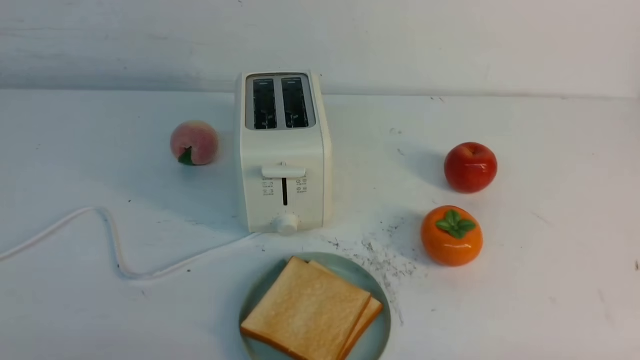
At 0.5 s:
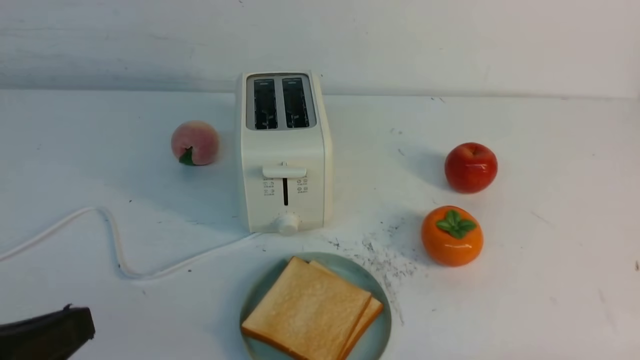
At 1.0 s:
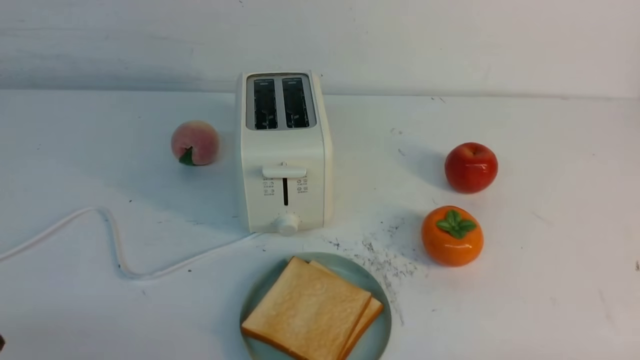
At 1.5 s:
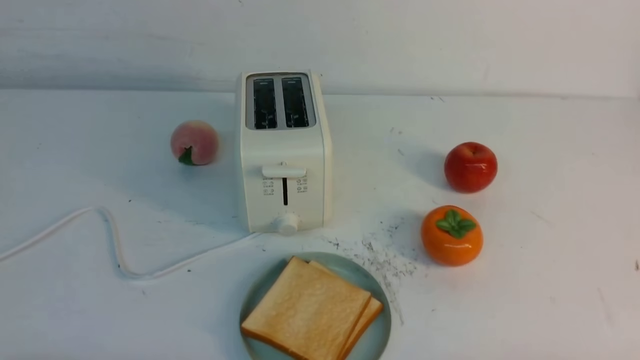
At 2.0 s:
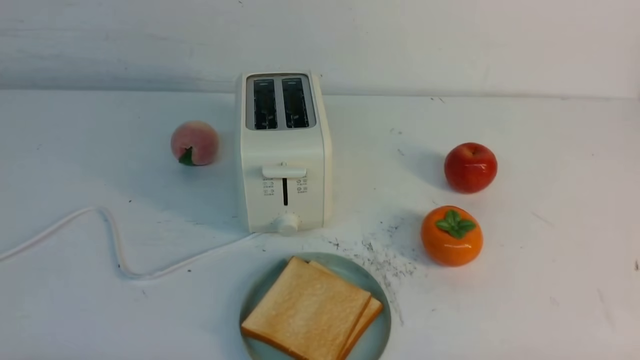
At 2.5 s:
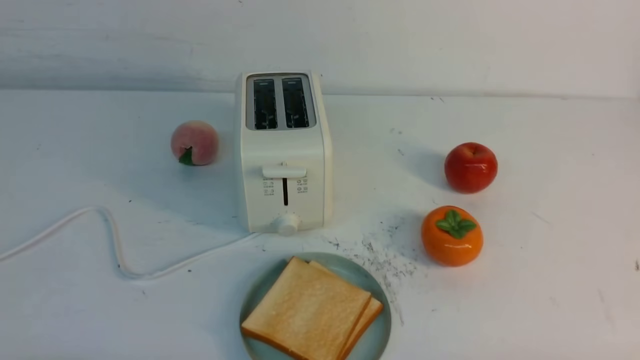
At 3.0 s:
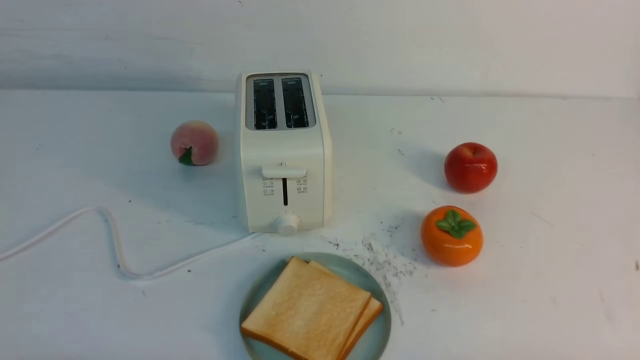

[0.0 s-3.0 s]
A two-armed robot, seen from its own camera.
Task of the whole recording: take toasted bread from bread machine on white table place on plate.
1.5 to 3.0 s: The two grippers keep their place.
